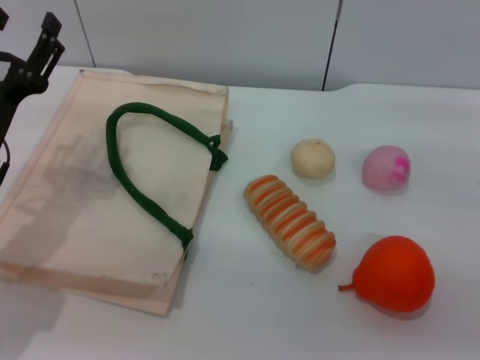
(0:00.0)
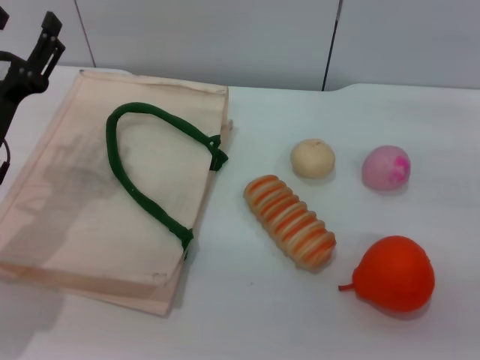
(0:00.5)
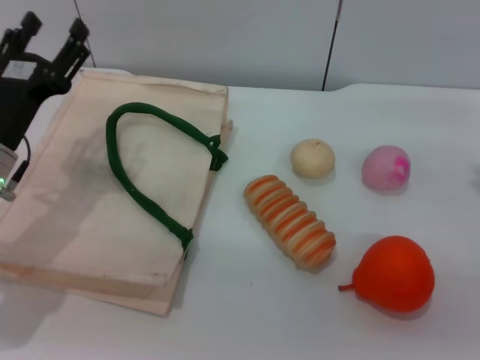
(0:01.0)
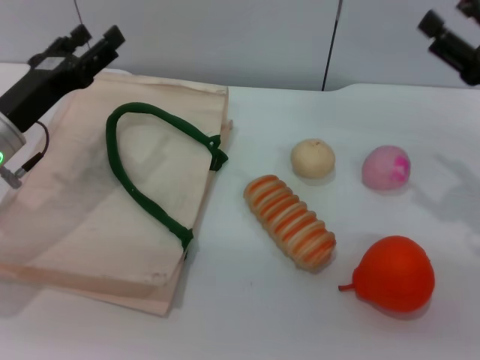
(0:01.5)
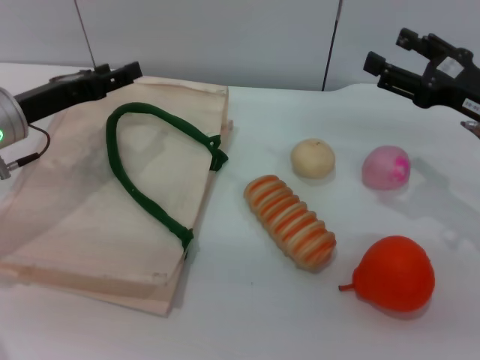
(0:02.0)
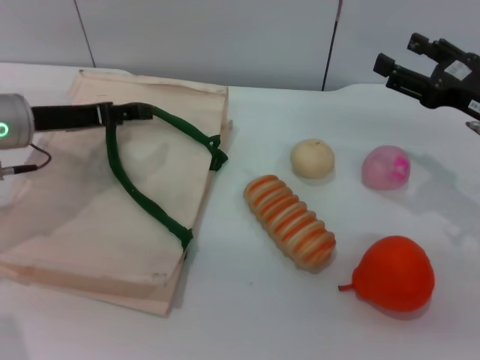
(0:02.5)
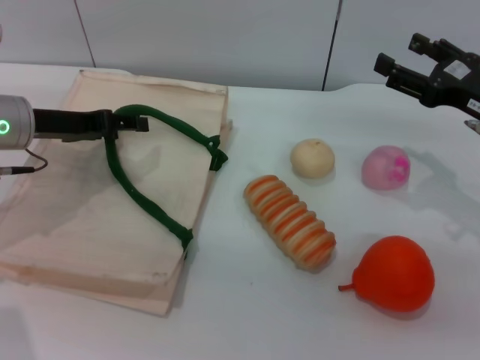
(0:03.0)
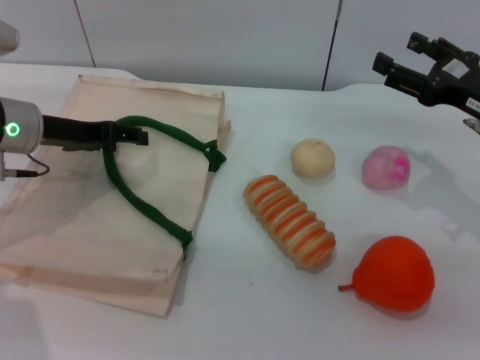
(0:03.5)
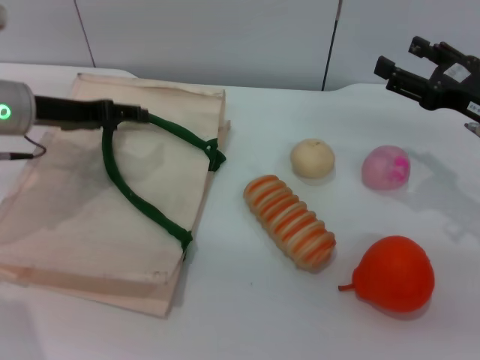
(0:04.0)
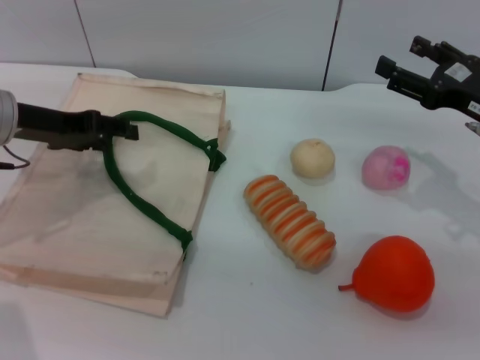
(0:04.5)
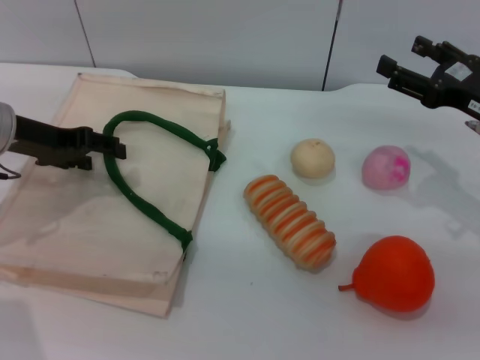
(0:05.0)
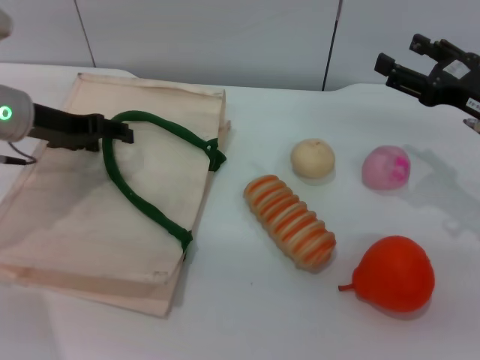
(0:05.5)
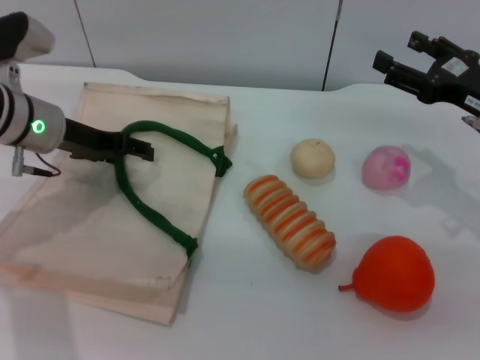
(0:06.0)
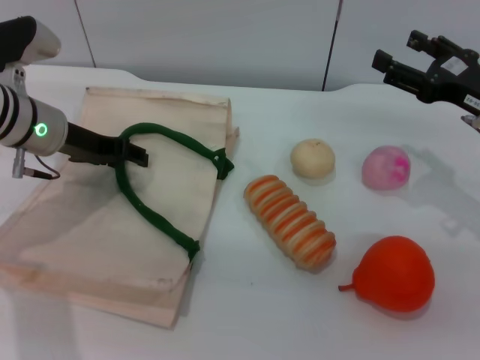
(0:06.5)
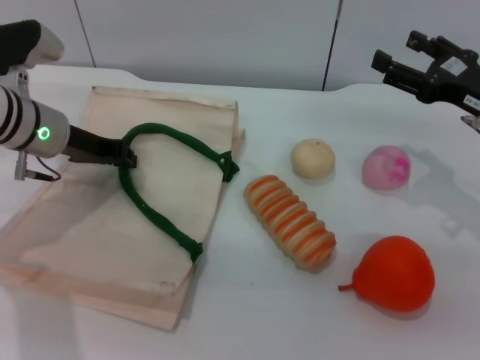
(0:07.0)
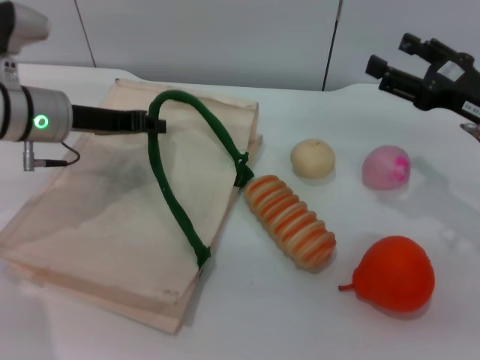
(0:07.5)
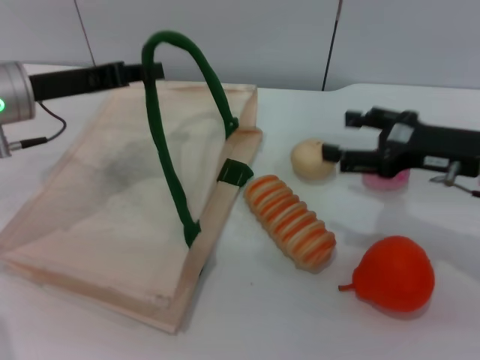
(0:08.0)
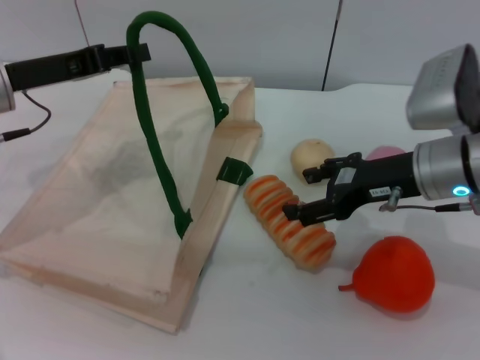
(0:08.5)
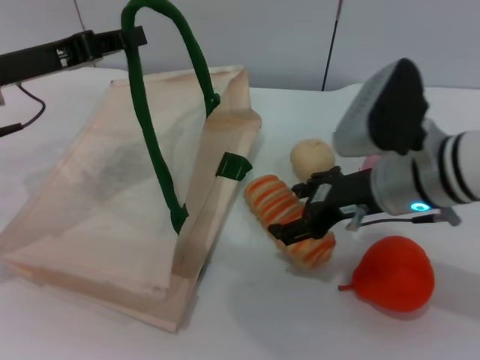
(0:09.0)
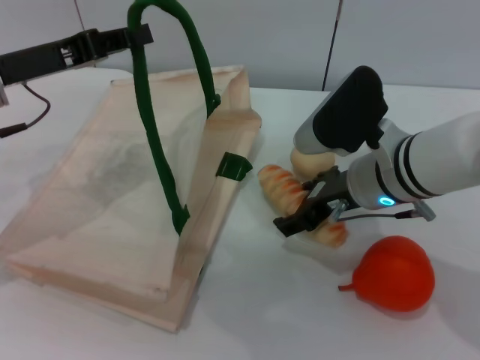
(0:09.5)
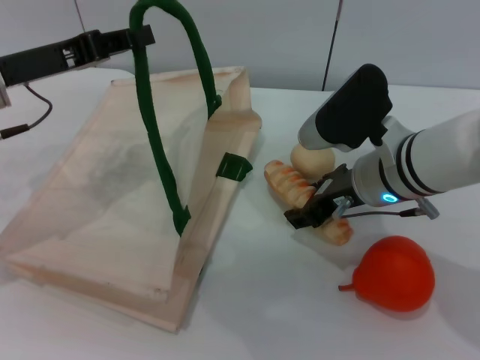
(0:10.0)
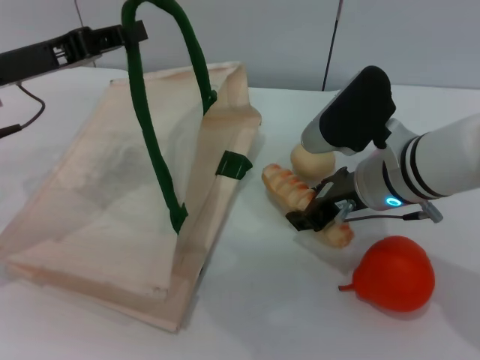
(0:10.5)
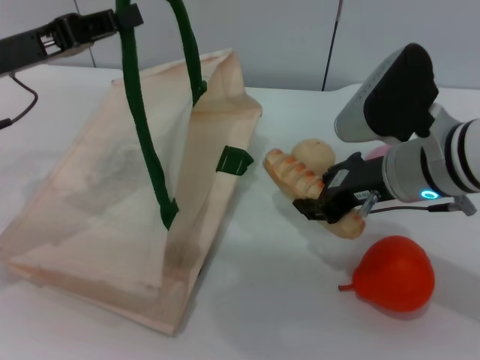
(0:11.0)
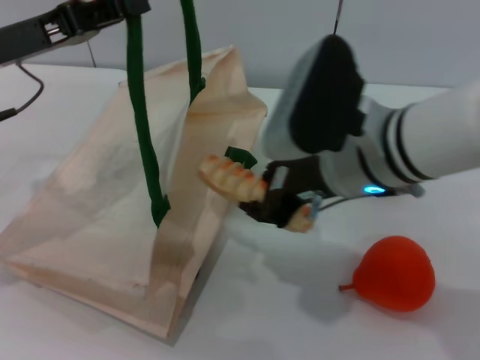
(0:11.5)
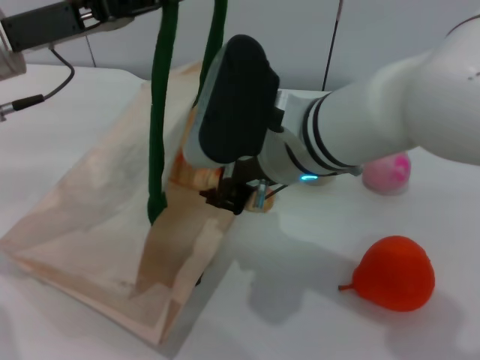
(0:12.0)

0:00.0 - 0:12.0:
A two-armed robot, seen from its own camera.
Task of the whole recording: pick up the bread and egg yolk pastry from the table and place it in the white handbag.
Step, 0:00.0 - 0:07.0: Lift the woven bag with the left gripper to open it.
Step, 0:07.5 - 0:11.0: Pick up the bread with the right gripper.
0:00.0 - 0:02.0: The right gripper shifts by about 5 cm. The left gripper goes about 5 cm forward.
0:04.0 - 0:06.0: The grippers make only small movements.
0:06.0 - 0:08.0: The left gripper closes.
0:08.0 - 0:10.0: The right gripper moves to the left, roughly 10 cm.
0:10.0 - 0:12.0: The right gripper heads to the left and upward, covering roughly 10 cm, and closes up.

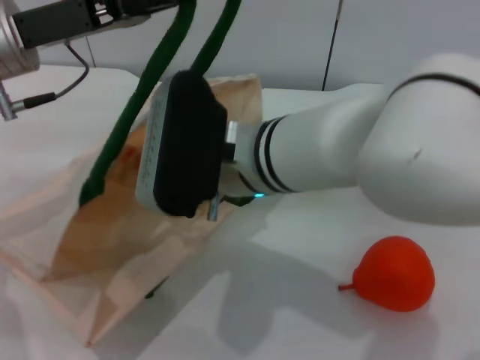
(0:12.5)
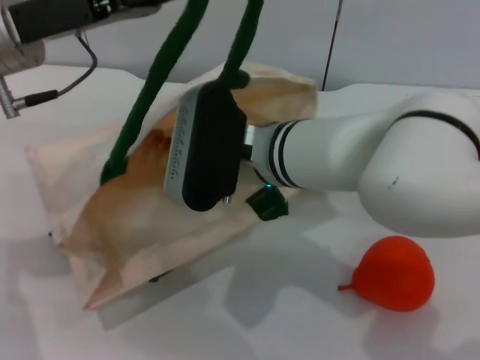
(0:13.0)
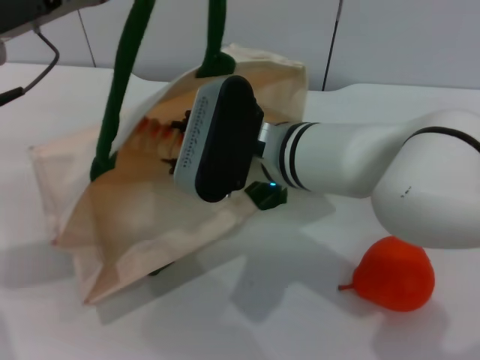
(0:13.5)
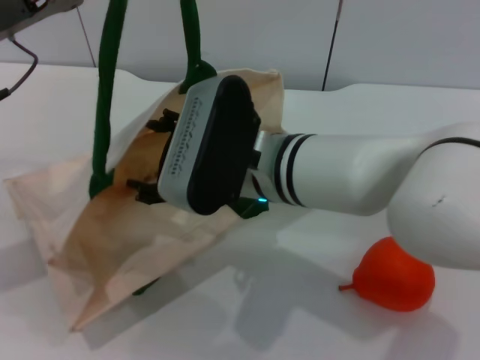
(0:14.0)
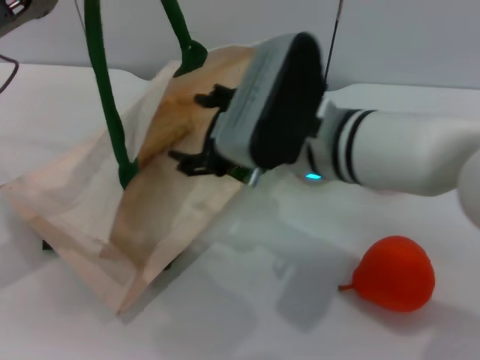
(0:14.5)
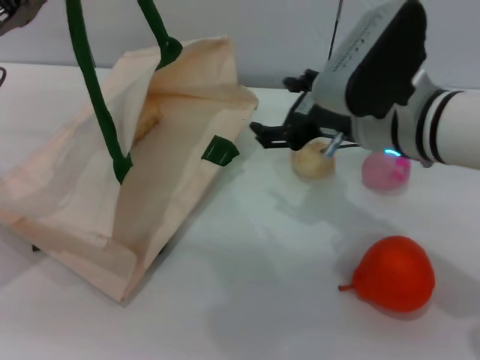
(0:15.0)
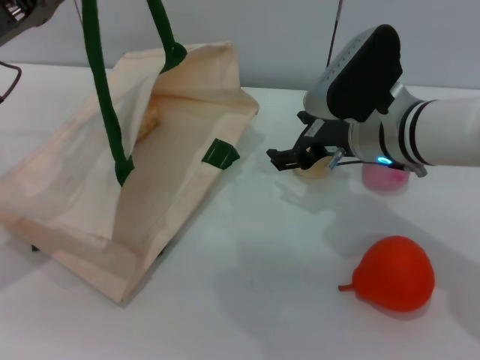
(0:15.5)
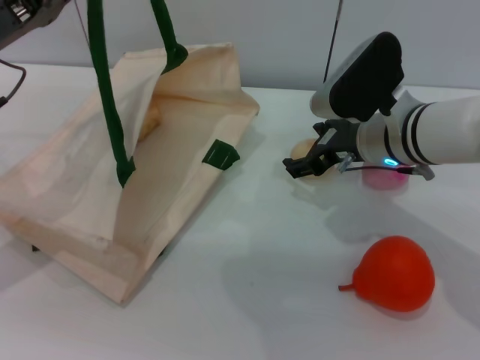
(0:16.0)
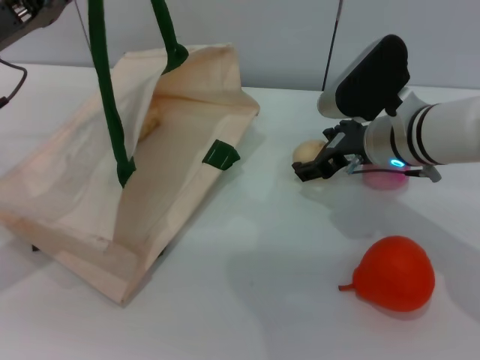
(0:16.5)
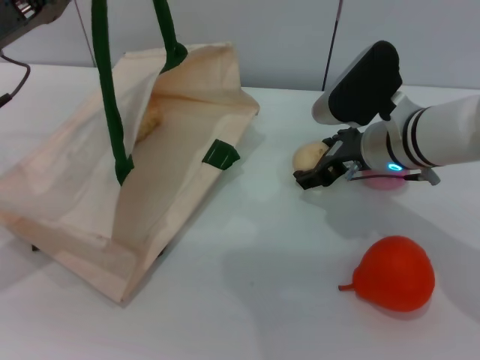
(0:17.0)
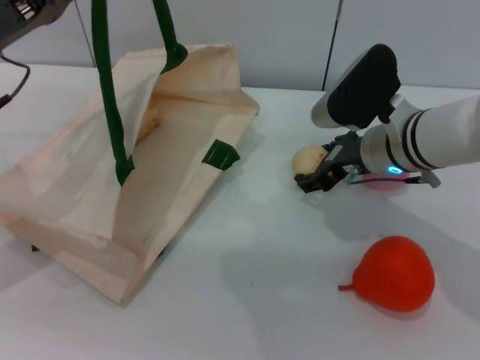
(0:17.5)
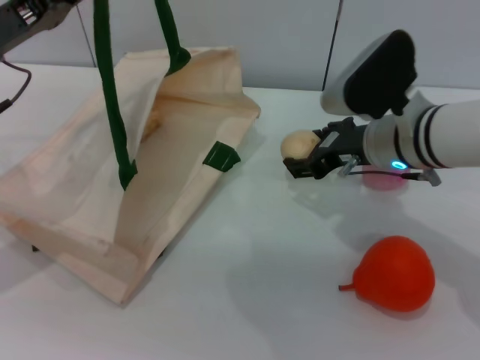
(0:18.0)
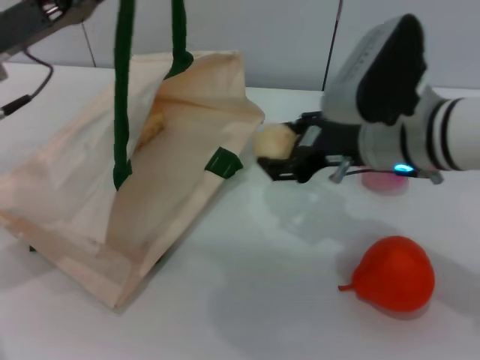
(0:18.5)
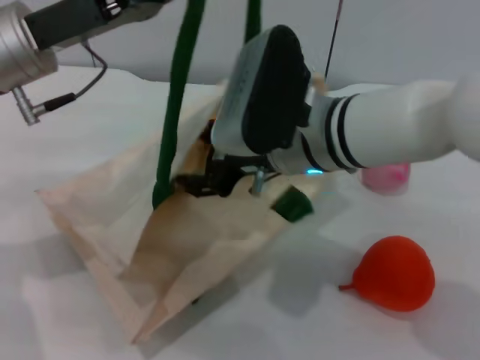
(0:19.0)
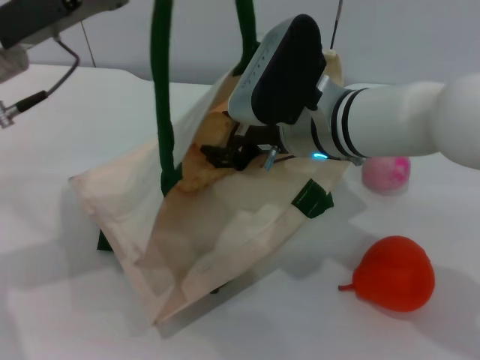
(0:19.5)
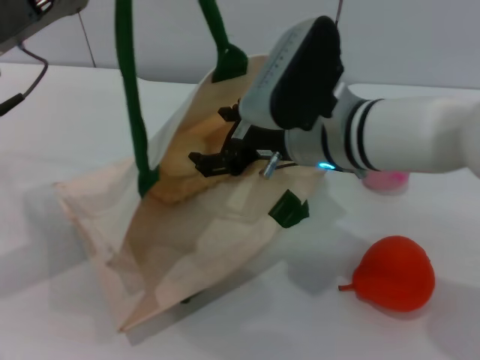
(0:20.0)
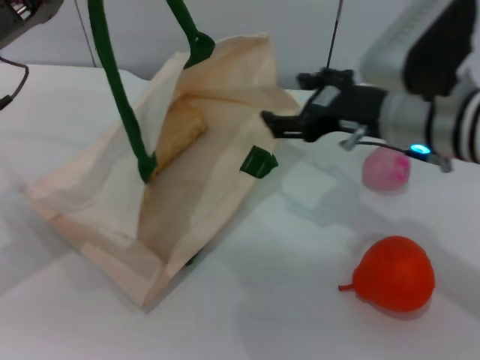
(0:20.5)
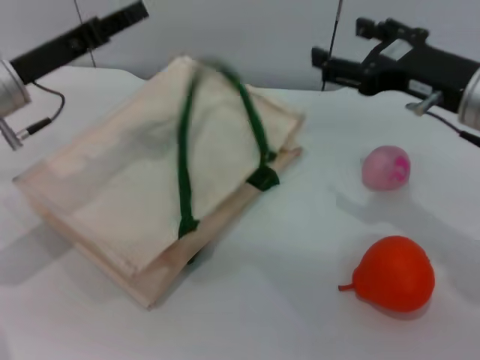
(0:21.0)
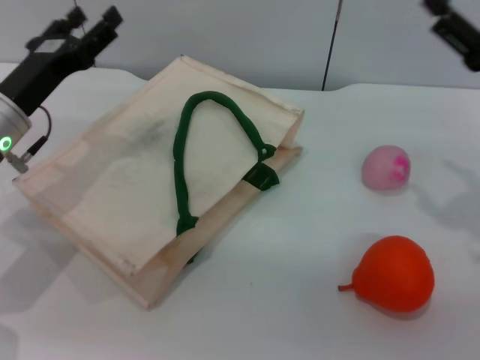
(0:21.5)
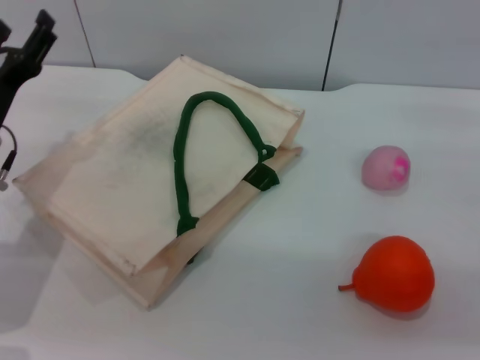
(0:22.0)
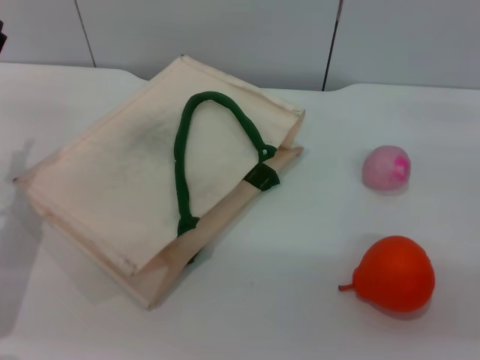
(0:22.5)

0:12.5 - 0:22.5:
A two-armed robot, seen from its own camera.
Task of the whole recording: pick up the bread and egg yolk pastry from the table and place it in the white handbag.
Step, 0:12.5 - 0:14.5: Place the bread into the woven bag with the right gripper.
Step, 0:15.0 - 0:18.0: Pick up the egg yolk pastry with the right gripper.
Step, 0:18.5 - 0:20.0: Place the egg yolk pastry into the woven bag with the right gripper.
Step, 0:20.5 - 0:21.5: Lower the woven bag with the left gripper to close it.
0:12.5 - 0:14.5: The left gripper is displaced to the left by roughly 5 cm. Meanwhile the right gripper travels to the right by about 5 cm, and opens up.
0:14.5 - 0:16.5: The right gripper goes about 15 cm to the right, forward and downward.
0:16.5 - 0:18.5: The right gripper shifts approximately 5 cm upward.
0:18.5 - 0:20.5: The right gripper moves approximately 10 cm to the left and comes back.
0:20.5 - 0:22.5: The right gripper heads to the right, covering approximately 20 cm. Meanwhile the left gripper heads downward, covering some 10 cm, and opens.
